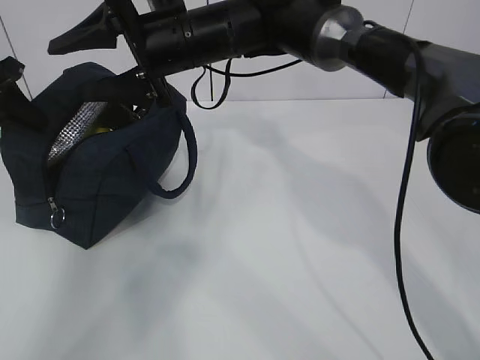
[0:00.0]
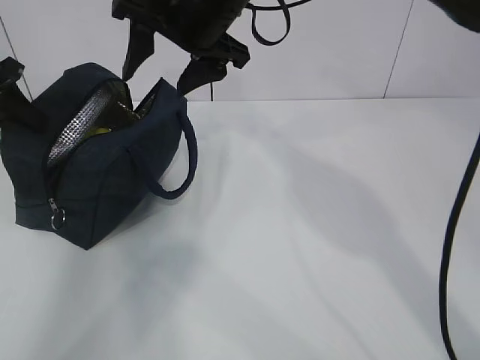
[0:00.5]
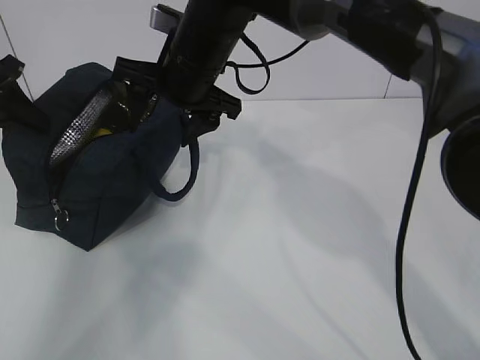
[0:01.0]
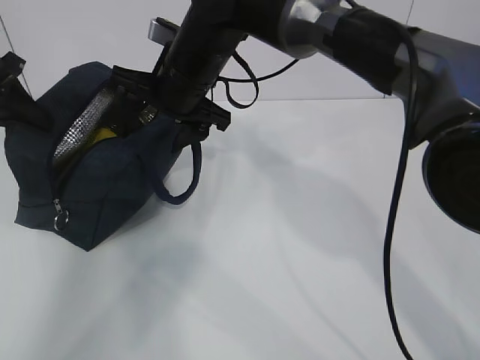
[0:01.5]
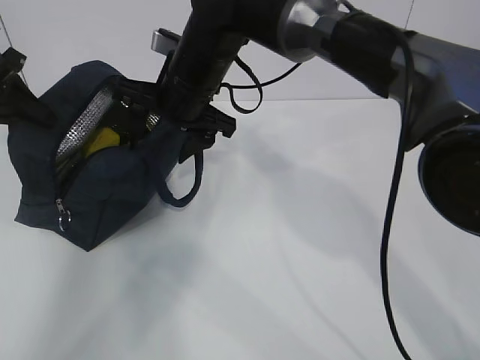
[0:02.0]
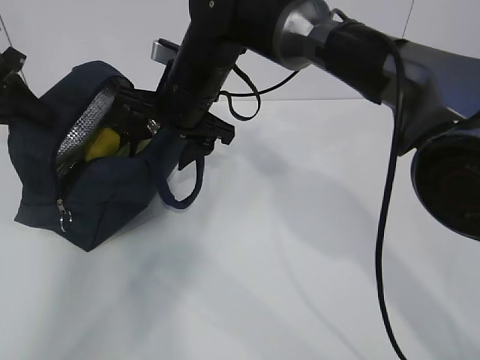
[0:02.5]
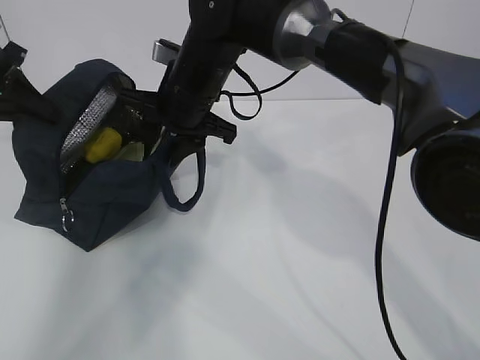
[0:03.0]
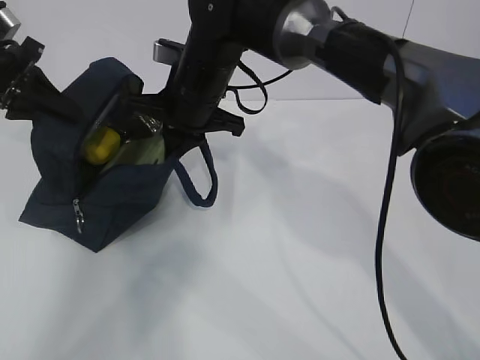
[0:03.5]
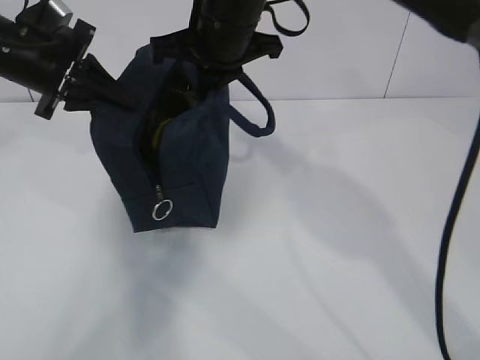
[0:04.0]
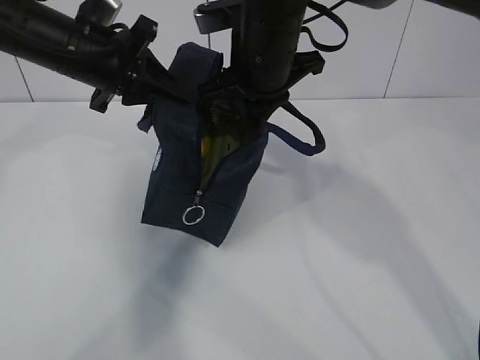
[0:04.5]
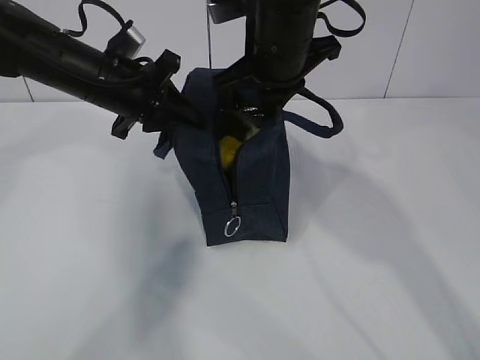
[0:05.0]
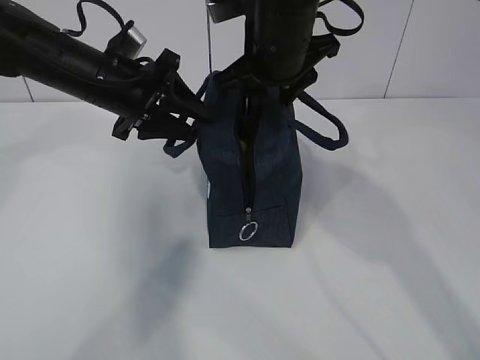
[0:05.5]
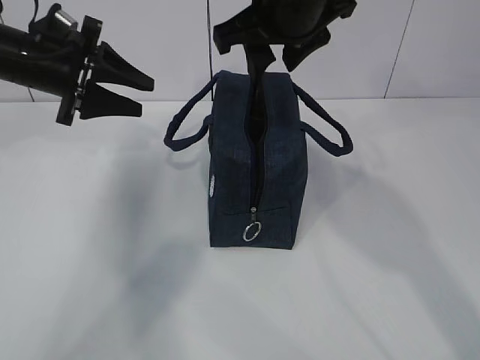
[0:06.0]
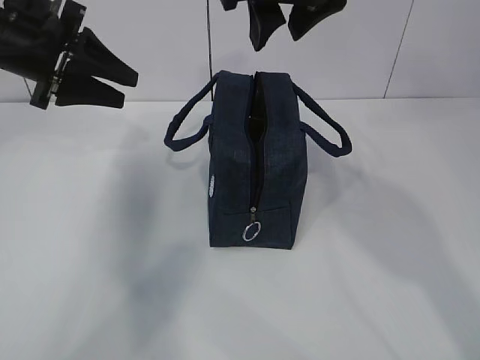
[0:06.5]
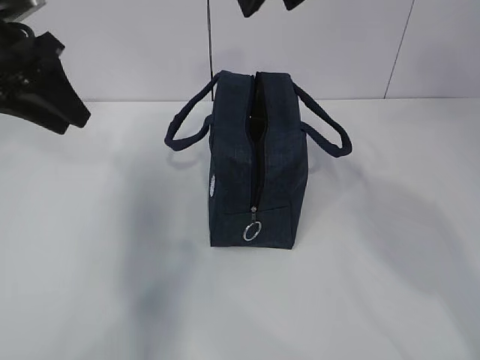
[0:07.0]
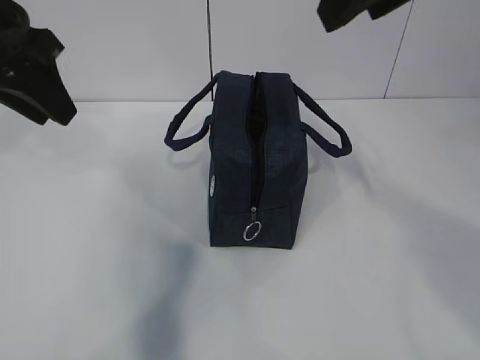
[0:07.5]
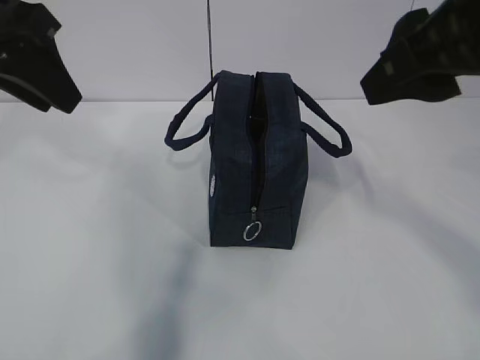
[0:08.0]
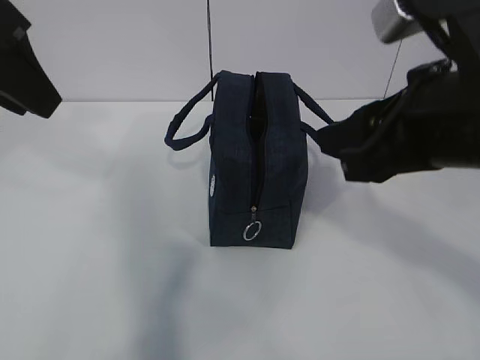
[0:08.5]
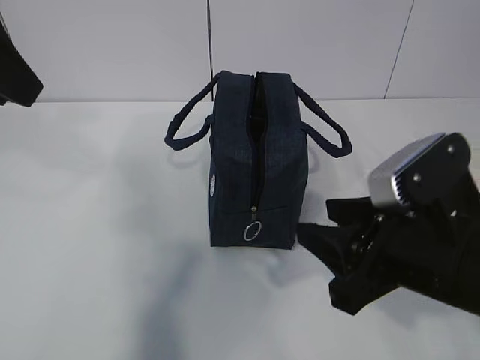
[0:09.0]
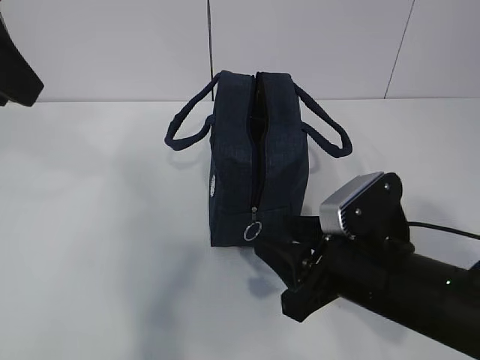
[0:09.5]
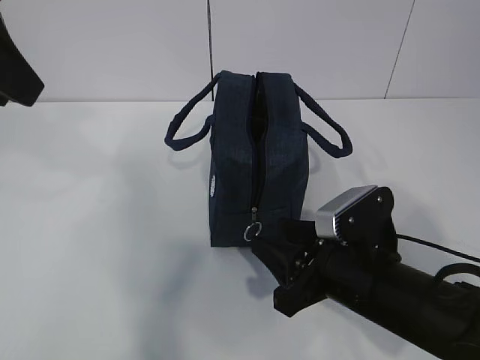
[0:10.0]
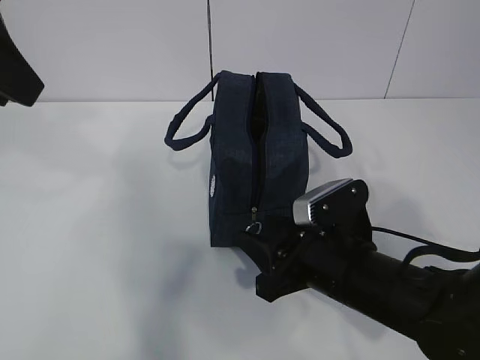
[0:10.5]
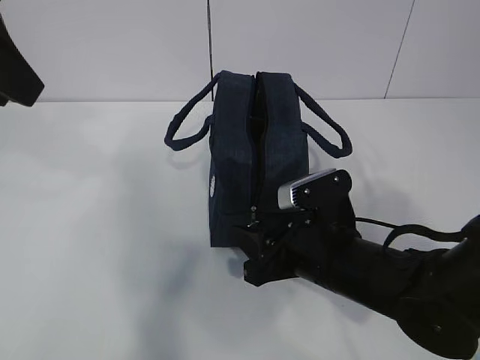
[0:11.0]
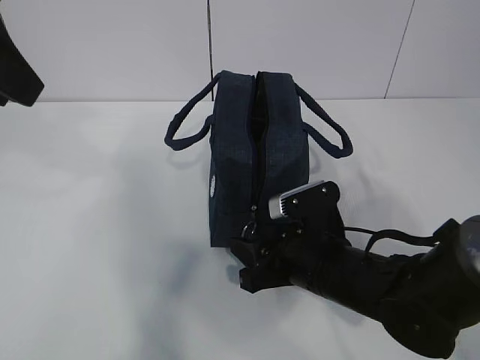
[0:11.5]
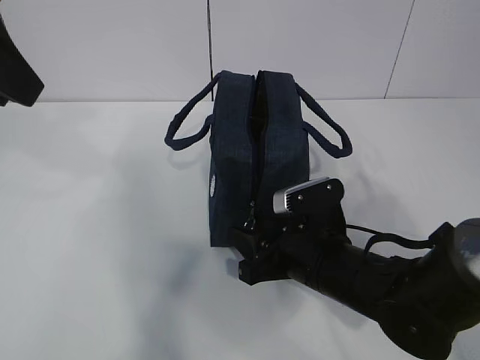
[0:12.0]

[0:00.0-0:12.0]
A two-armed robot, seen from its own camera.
2.0 to 4.0 s: The right gripper travels upward by about 5 cm, and closes its fingers. The left gripper heads to the right, covering approximately 10 cm.
4.0 to 6.0 s: The left gripper moves roughly 10 cm to the right and comes back, and opens; the right gripper moves to the right, approximately 5 cm, and opens up.
6.0 to 8.0 s: The left gripper heads backward and upward, covering roughly 20 cm; the right gripper moves backward and to the right, about 20 cm.
8.0 to 10.0 s: The left gripper moves backward, about 5 cm. The right gripper shifts roughly 25 cm downward.
10.0 to 12.0 s: The right gripper moves approximately 5 cm.

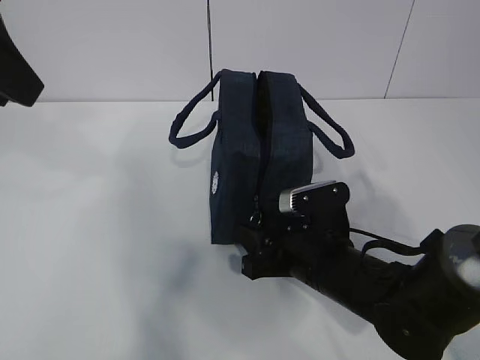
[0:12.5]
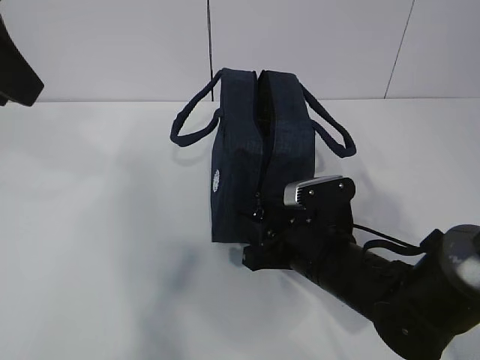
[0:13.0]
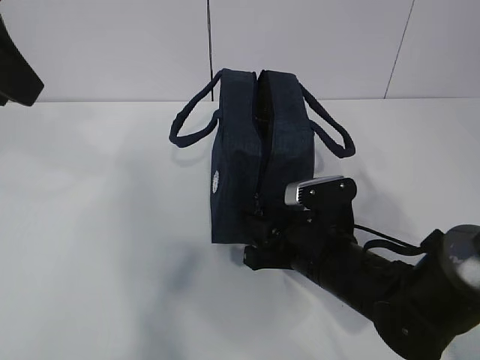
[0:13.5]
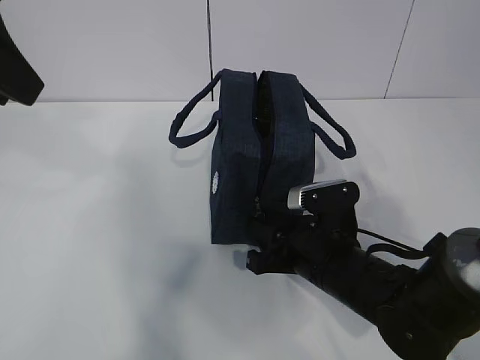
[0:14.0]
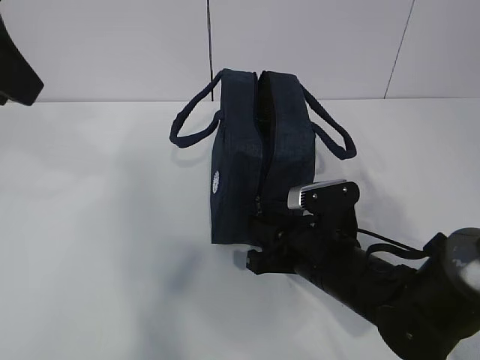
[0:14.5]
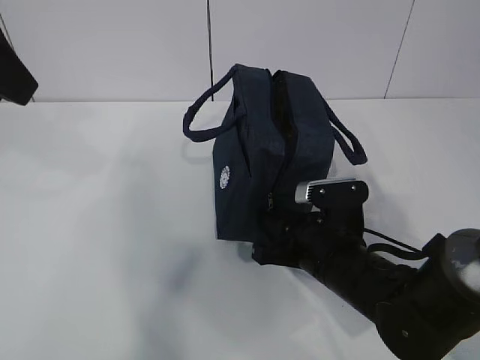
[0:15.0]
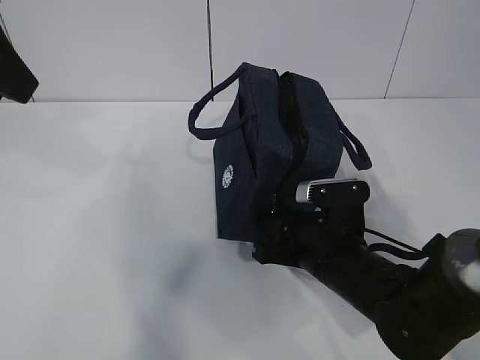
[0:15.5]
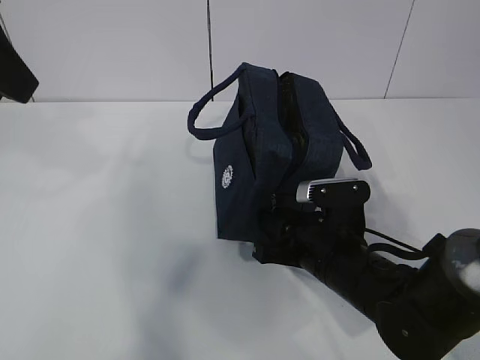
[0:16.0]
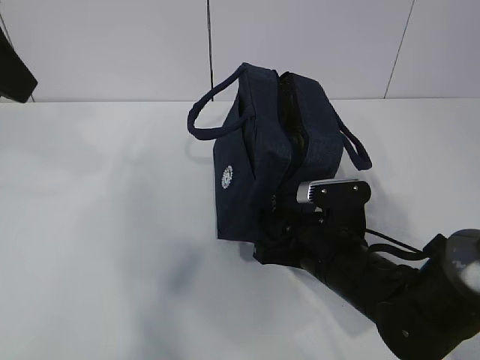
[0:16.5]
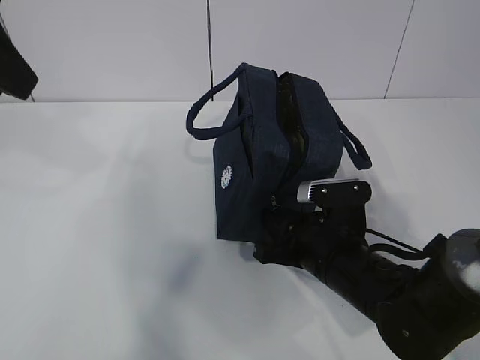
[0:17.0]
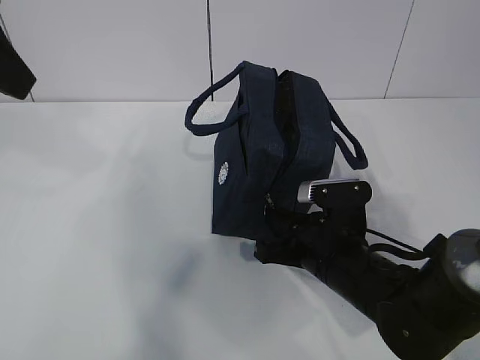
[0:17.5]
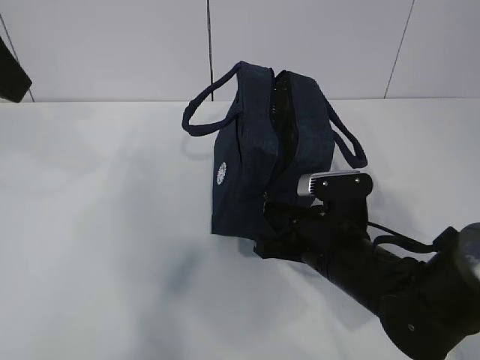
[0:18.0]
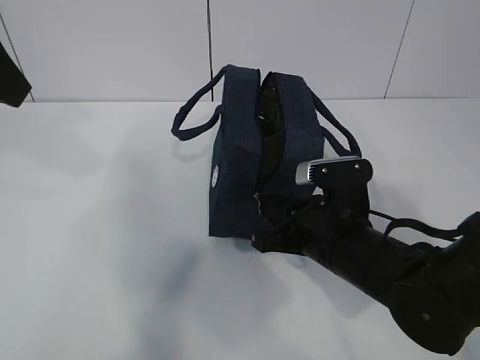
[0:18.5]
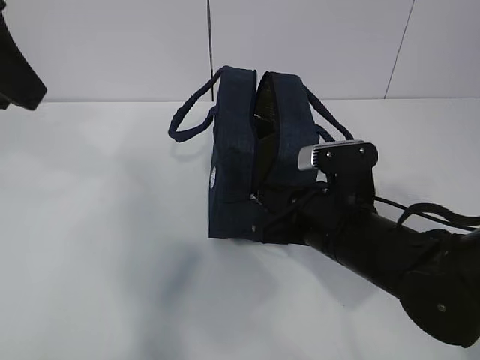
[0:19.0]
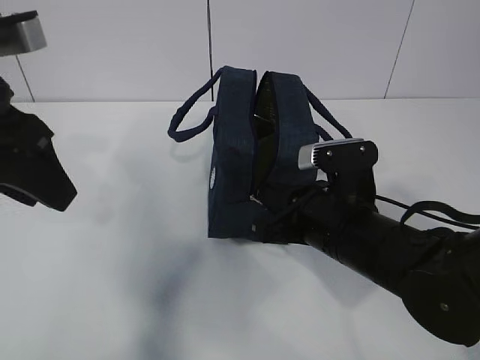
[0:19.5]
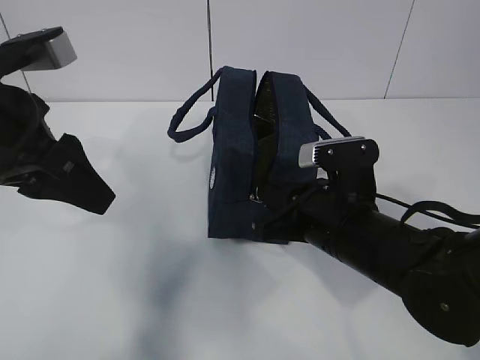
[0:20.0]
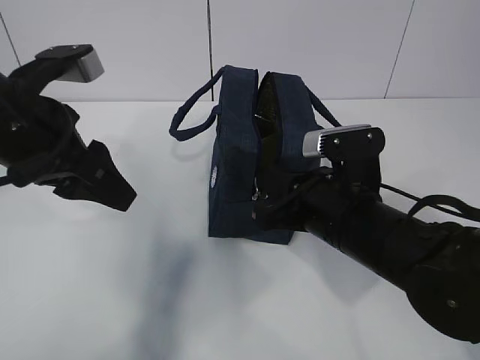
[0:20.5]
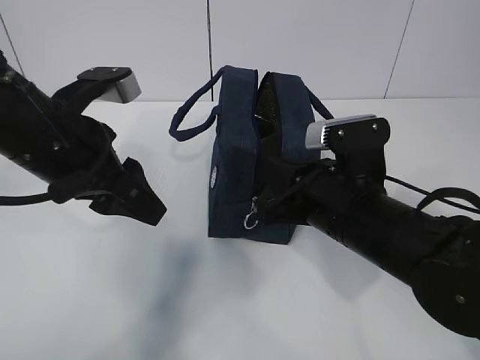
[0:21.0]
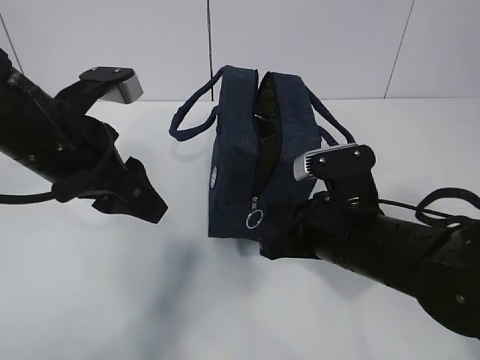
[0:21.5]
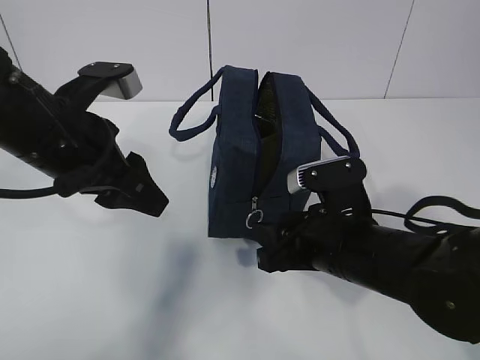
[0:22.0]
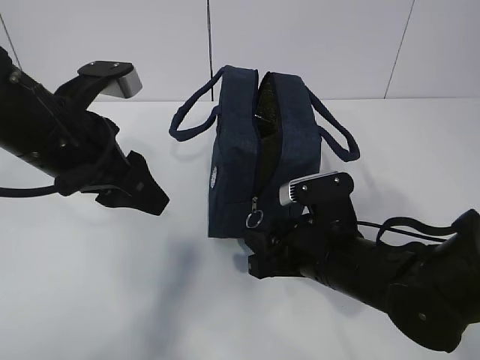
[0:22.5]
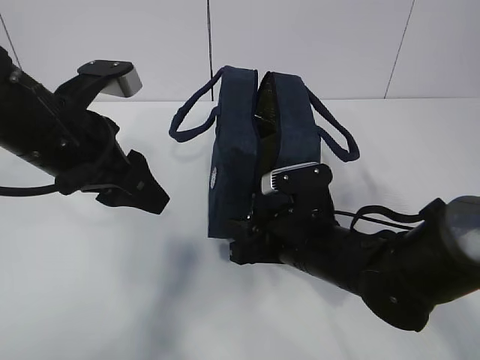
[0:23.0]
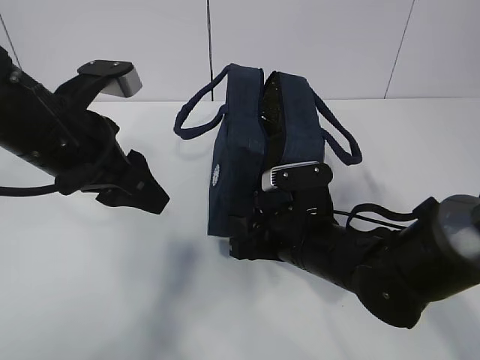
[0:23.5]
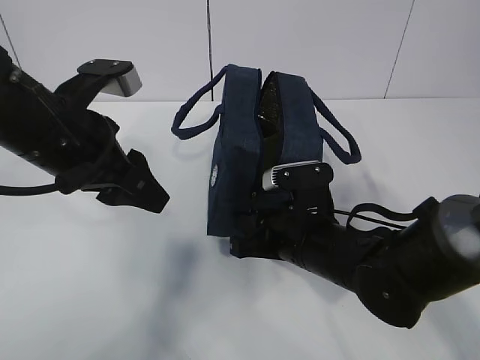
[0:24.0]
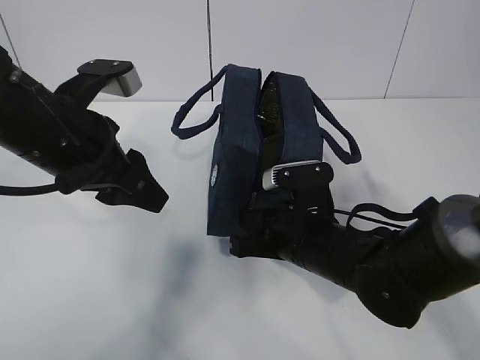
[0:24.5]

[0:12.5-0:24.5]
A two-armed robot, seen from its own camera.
Step, 12.5 to 16.5 s: Grab the lunch bag with your left hand.
Step, 17.5 to 20.0 s: Grab the lunch bag with your left hand.
12.5 to 14.5 s: The right gripper closes up.
14.5 to 16.5 s: There are only small adjustments of the grippers.
16.5 to 18.5 s: The right gripper closes.
18.5 to 20.5 s: The left gripper heads downward, covering about 15 cm.
20.5 to 22.5 s: The right gripper moves downward, some 5 cm, and opens up.
22.5 to 24.5 s: The right gripper closes.

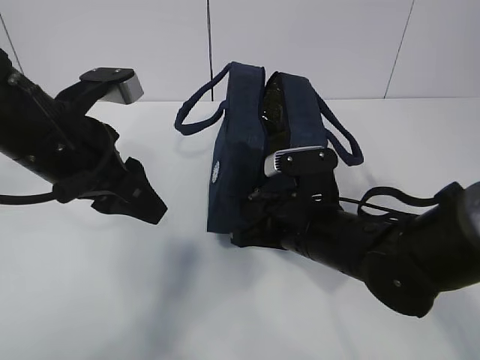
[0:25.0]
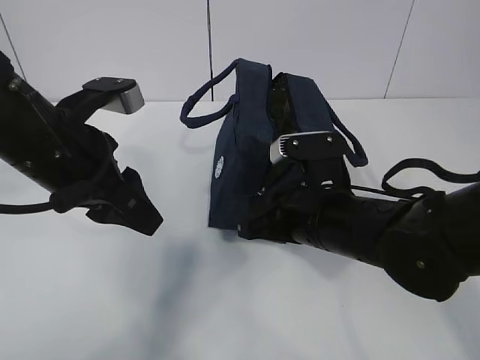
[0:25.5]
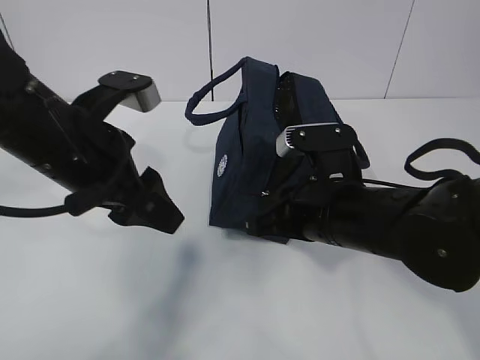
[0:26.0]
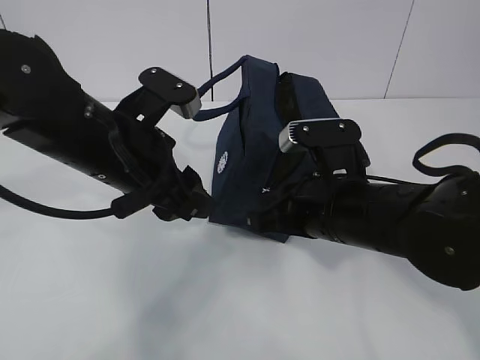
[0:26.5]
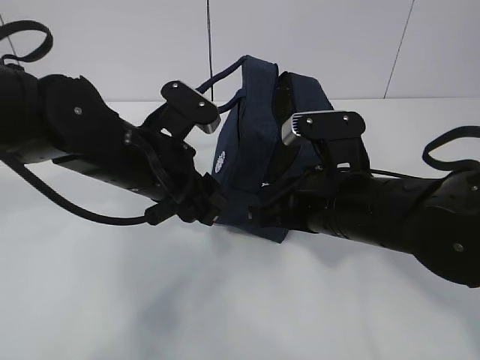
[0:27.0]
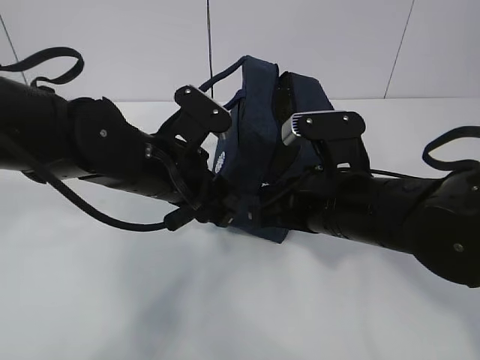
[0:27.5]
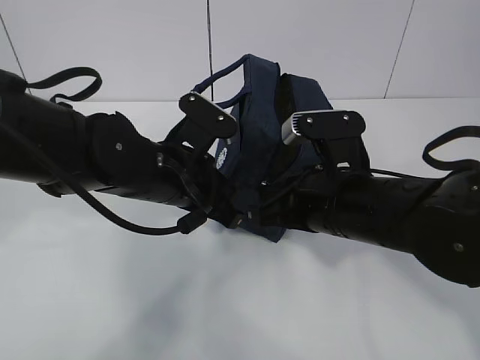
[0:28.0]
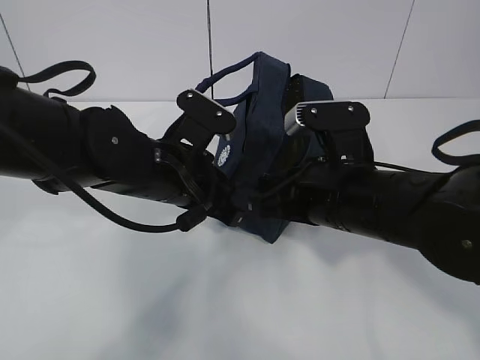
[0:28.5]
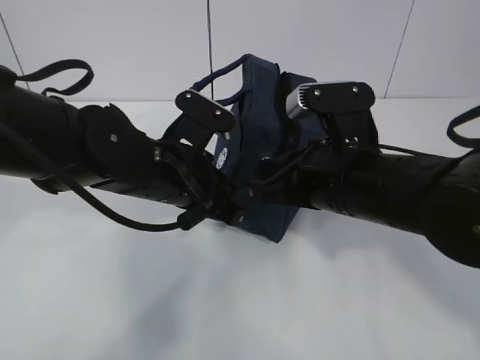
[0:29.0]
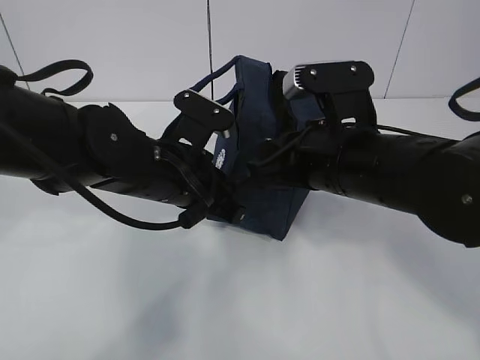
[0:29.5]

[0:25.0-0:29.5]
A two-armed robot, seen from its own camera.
25.0 to 27.0 s: The left gripper goes approximately 5 cm to the right; the right gripper goes approximately 5 cm upward.
27.0 to 29.5 s: The left gripper closes.
